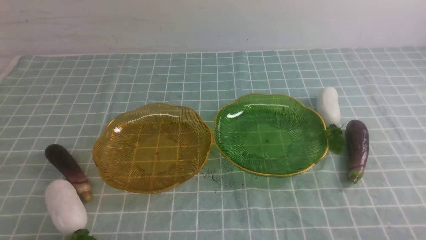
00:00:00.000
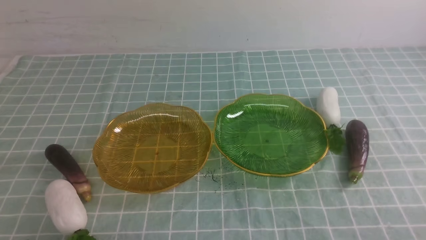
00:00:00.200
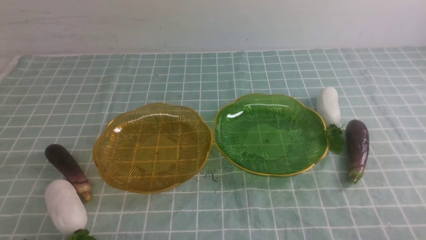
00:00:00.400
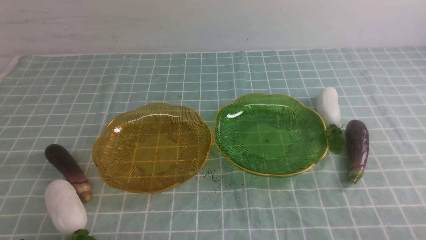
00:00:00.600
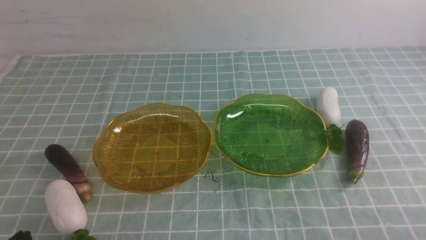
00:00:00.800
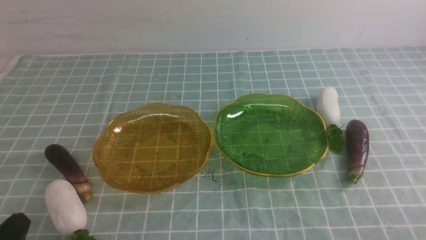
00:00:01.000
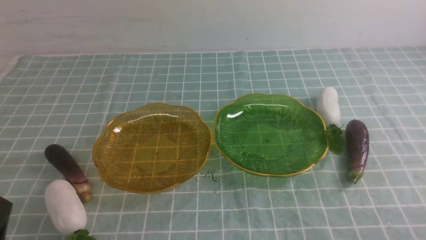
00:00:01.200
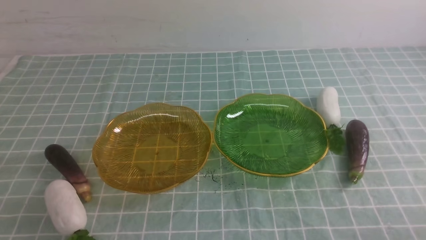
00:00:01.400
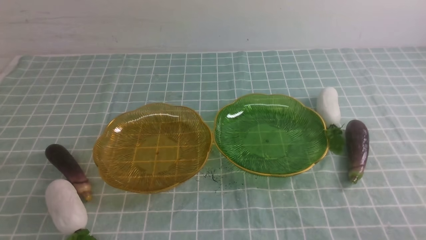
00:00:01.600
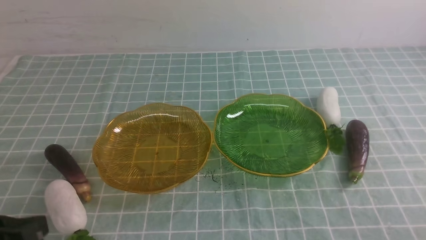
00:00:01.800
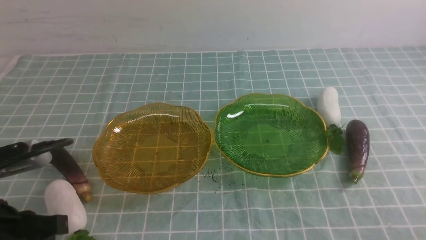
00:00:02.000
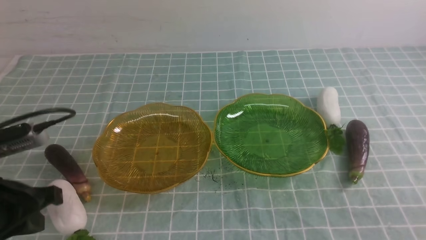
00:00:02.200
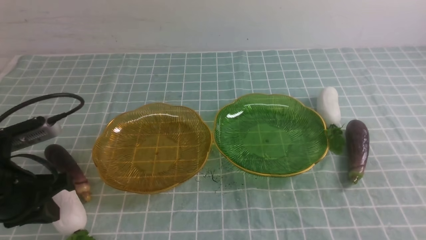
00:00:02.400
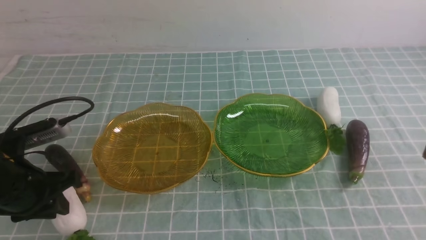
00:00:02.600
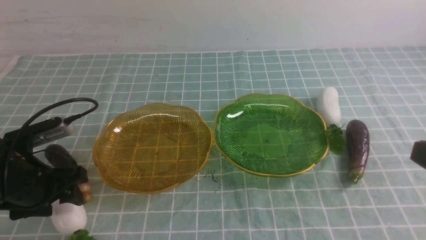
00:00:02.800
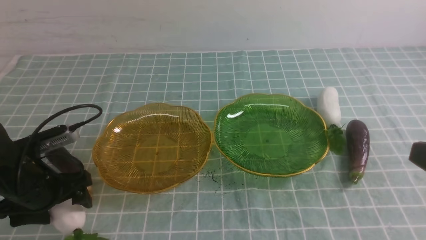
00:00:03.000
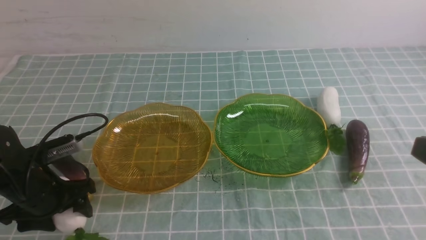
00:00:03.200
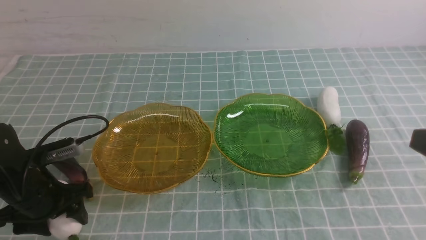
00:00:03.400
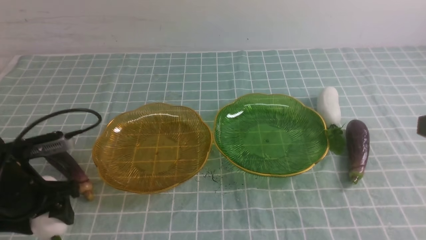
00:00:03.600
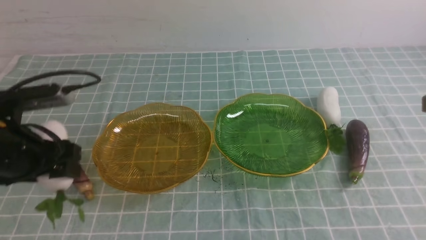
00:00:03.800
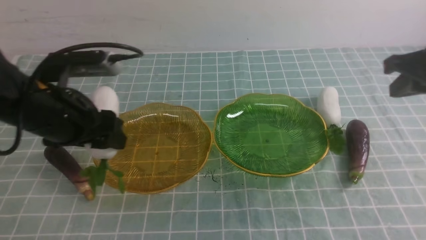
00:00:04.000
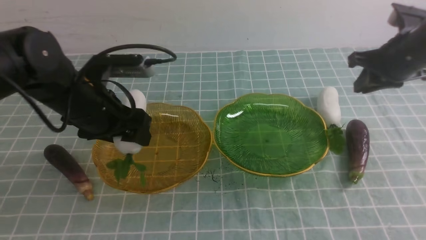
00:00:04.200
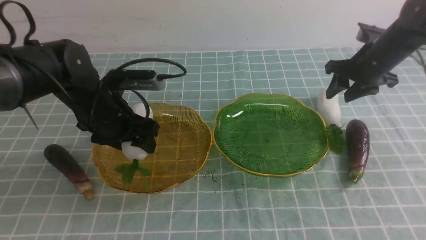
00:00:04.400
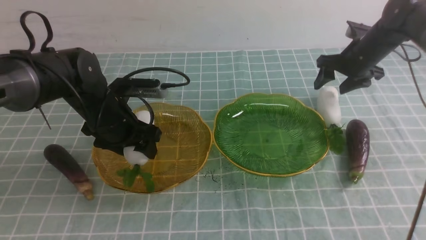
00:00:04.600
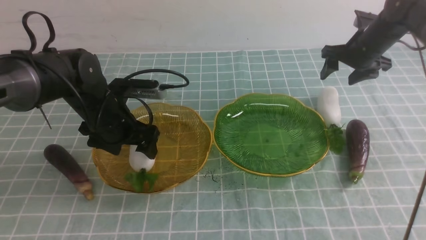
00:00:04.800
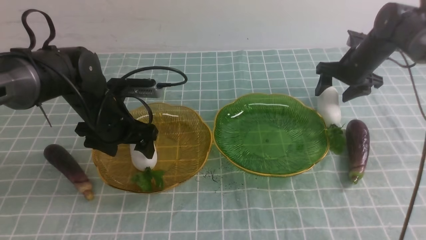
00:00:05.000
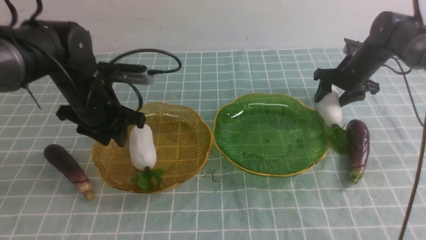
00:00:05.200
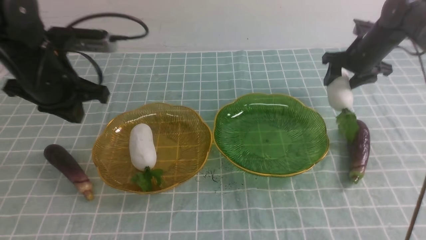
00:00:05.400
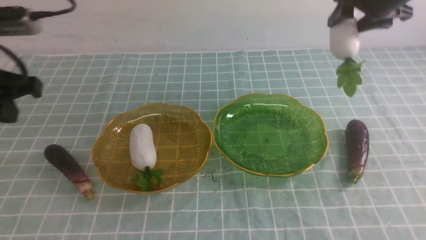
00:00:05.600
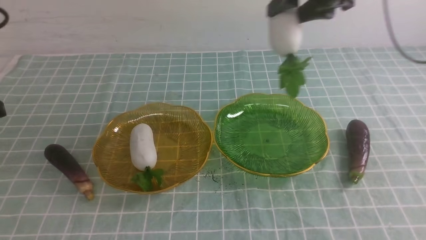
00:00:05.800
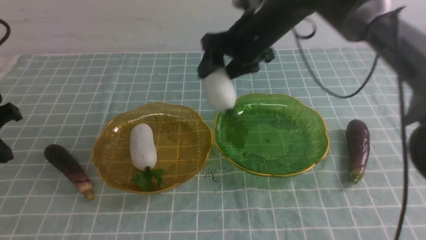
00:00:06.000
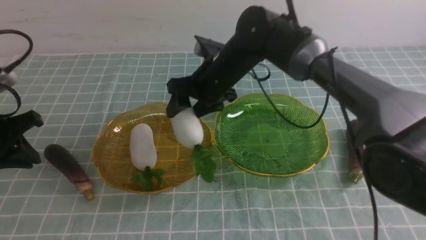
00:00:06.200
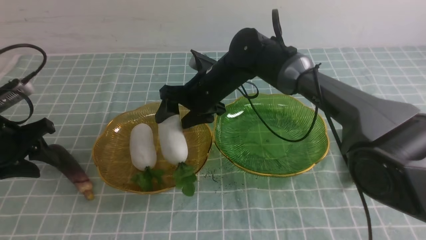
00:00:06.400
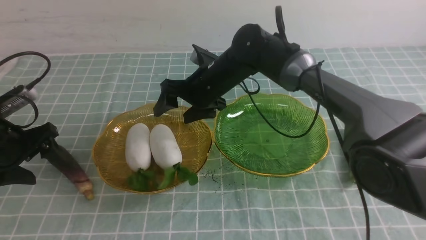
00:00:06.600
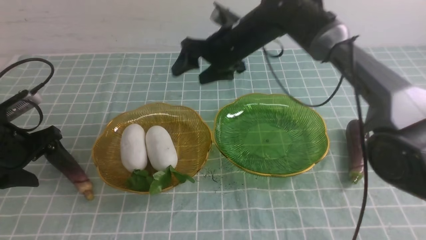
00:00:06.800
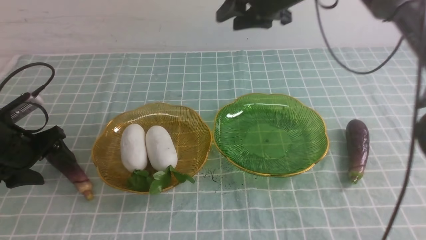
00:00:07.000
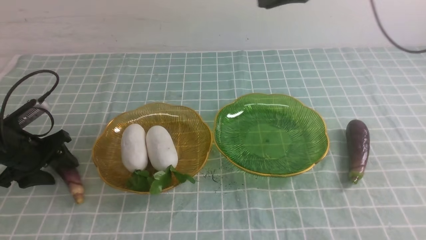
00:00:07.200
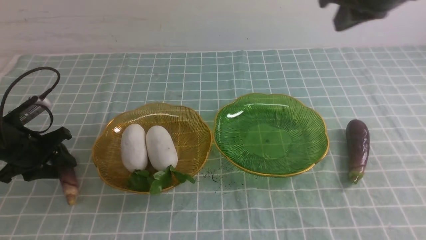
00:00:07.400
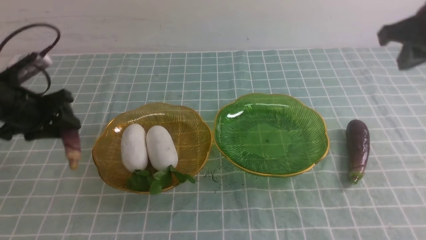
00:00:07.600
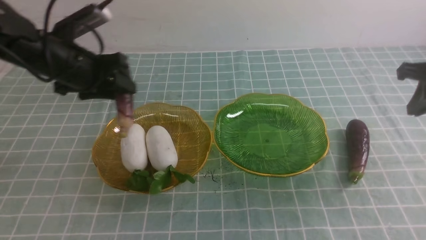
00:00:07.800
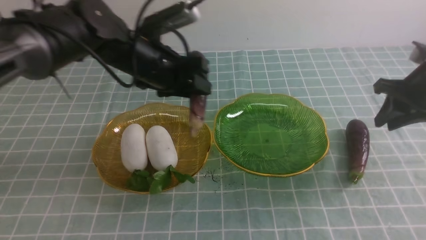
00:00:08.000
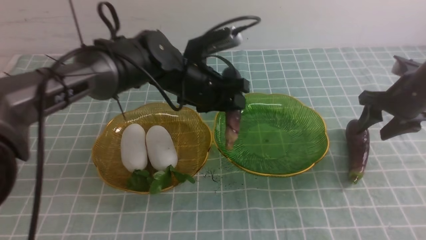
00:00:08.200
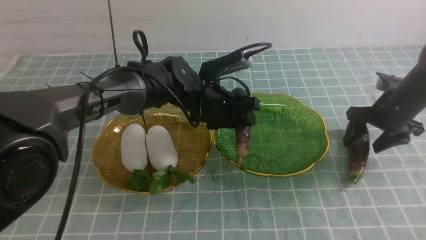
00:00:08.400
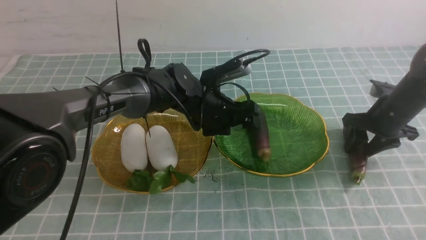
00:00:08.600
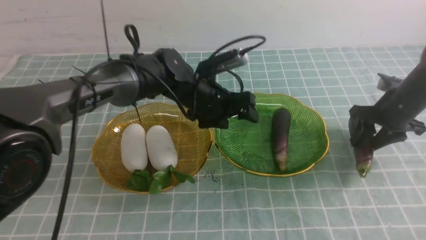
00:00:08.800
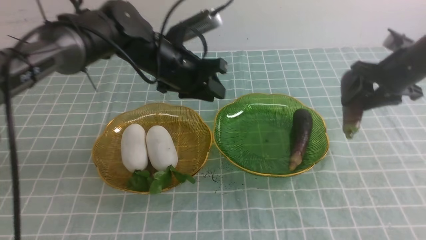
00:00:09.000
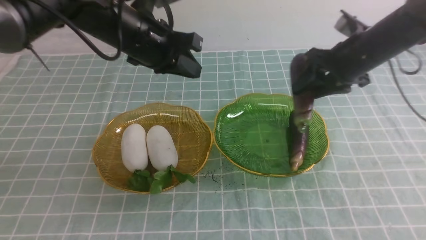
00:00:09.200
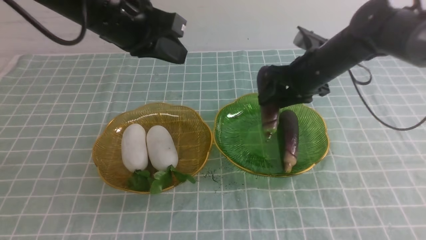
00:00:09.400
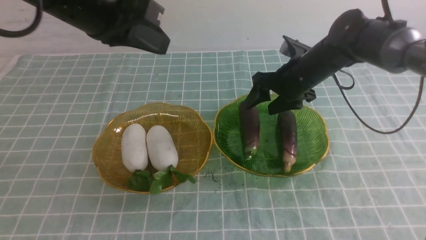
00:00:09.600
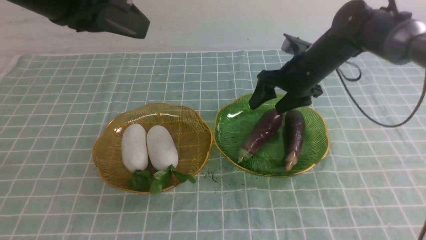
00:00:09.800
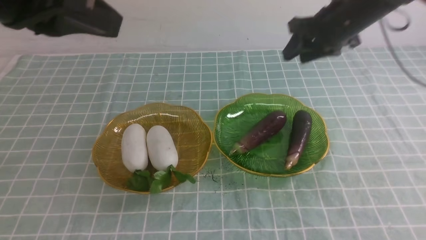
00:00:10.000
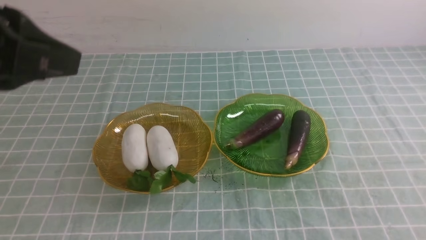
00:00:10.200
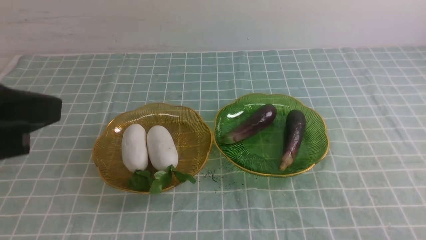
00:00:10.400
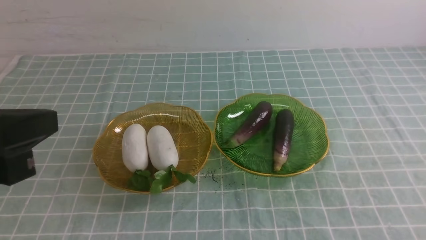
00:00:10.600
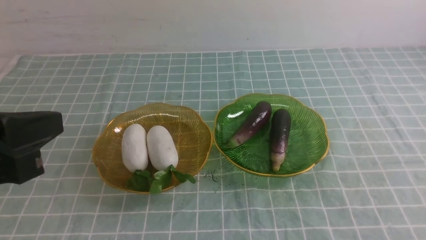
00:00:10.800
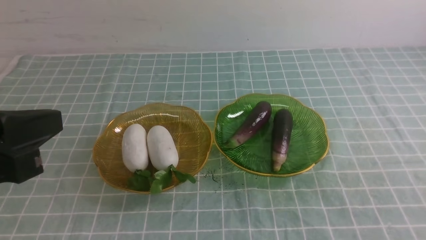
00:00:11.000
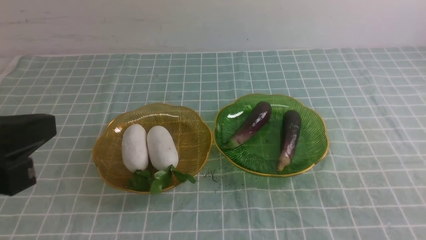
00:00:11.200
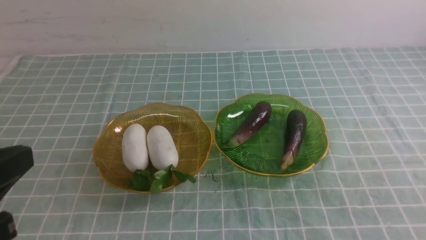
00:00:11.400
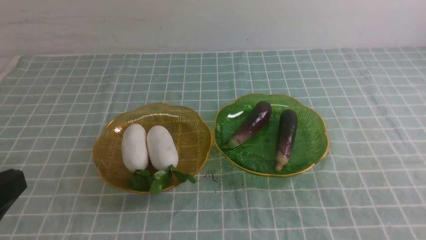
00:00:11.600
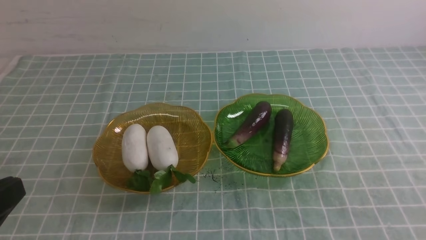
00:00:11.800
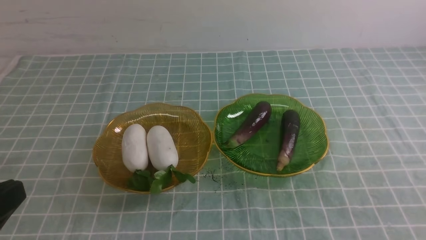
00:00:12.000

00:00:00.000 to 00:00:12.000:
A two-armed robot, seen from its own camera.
Step, 00:00:00.000 to 00:00:04.600: use the left arm to grab a radish and put it into the left plate.
Step, 00:00:04.800 to 00:00:06.400: use the right arm to grab a radish and put it into the left plate.
Step, 00:00:06.600 to 00:00:08.400: use the left arm to grab an eggplant and put it into the right plate.
Step, 00:00:08.600 to 00:00:09.600: use the right arm to grab an eggplant and put it into the right plate.
00:00:01.600 to 00:00:03.000: The left gripper travels forward and downward by about 20 cm, and opens.
00:00:03.000 to 00:00:04.400: The right gripper is displaced forward by approximately 35 cm, and opens. Meanwhile the left gripper travels forward, to the right and upward by about 15 cm.
00:00:04.400 to 00:00:06.000: The right gripper travels to the left by roughly 20 cm. The left gripper heads to the left and backward, covering approximately 20 cm, and closes.
00:00:06.000 to 00:00:07.600: The right gripper moves to the right, approximately 25 cm, and closes up, while the left gripper shifts some 10 cm forward and downward, and opens its fingers.
00:00:07.600 to 00:00:09.000: The left gripper is displaced to the right by roughly 20 cm, and opens and closes again. Meanwhile the right gripper moves downward and forward, approximately 10 cm, and opens its fingers.
00:00:09.000 to 00:00:10.400: The right gripper is displaced upward and backward by about 35 cm, and closes its fingers. Meanwhile the left gripper travels backward, upward and to the left by roughly 35 cm, and closes up.
00:00:10.400 to 00:00:12.000: The left gripper shifts some 15 cm downward and backward. The right gripper shifts about 25 cm downward and backward.

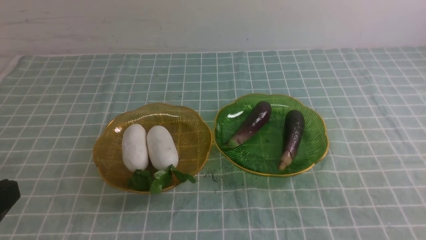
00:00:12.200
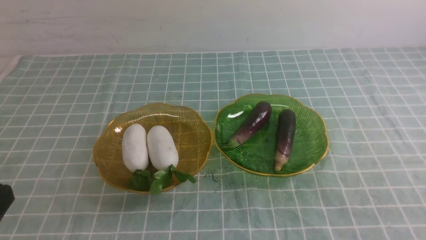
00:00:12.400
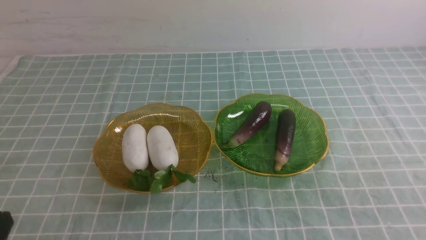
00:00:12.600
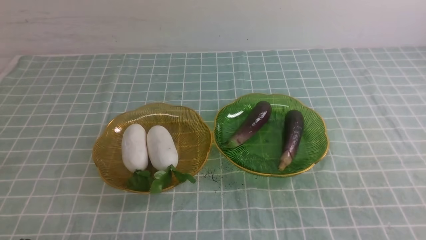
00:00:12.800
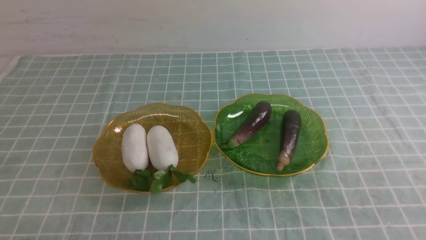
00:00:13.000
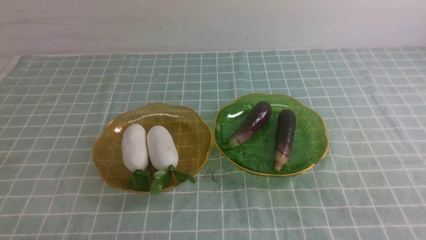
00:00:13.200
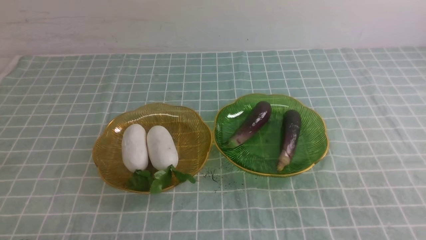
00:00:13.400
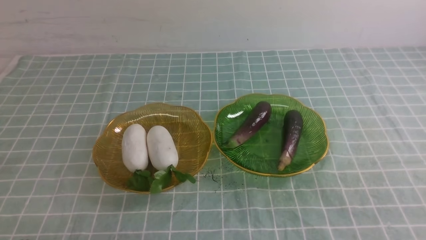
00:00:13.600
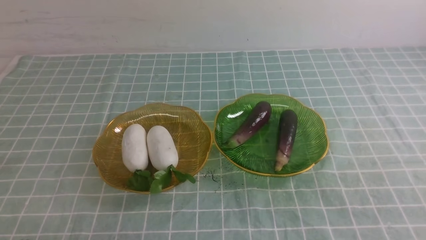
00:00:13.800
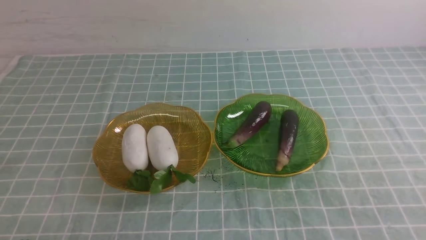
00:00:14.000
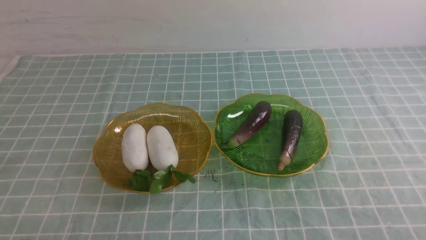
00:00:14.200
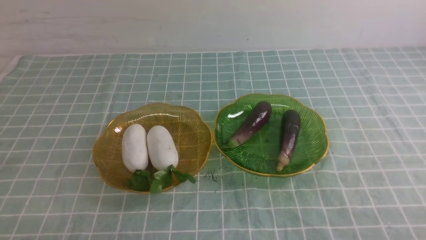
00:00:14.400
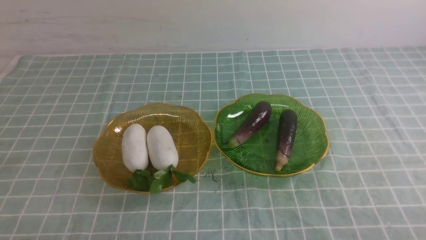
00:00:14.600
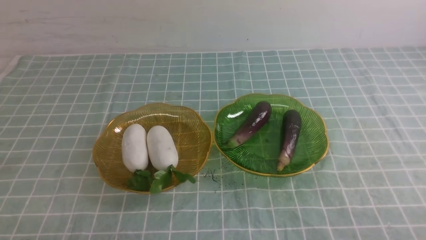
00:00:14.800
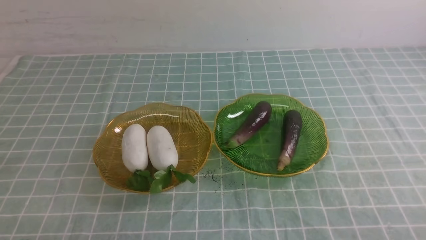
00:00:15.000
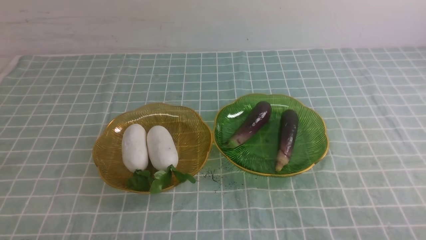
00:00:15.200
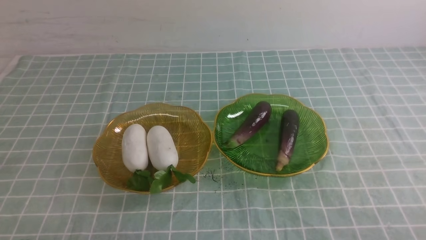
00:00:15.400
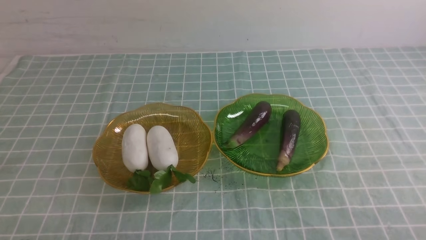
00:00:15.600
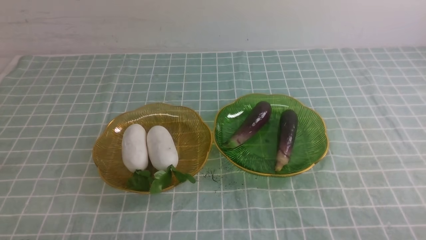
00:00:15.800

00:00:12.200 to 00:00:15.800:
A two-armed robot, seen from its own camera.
00:00:12.200 to 00:00:14.000: The left gripper shifts some 15 cm downward. Meanwhile the right gripper shifts some 10 cm downward.

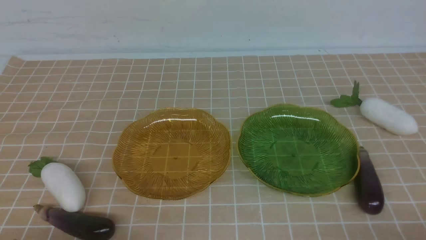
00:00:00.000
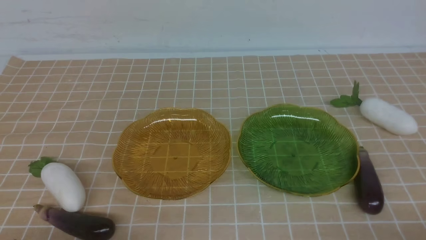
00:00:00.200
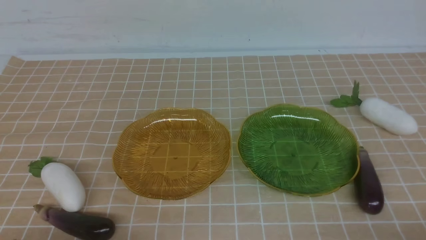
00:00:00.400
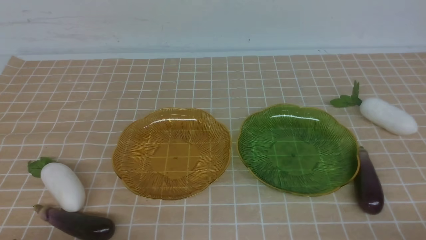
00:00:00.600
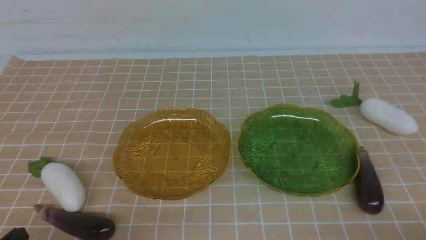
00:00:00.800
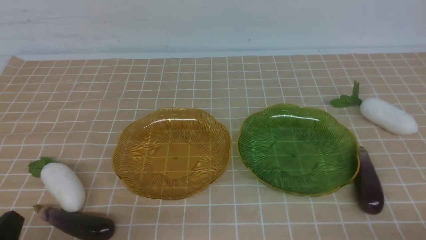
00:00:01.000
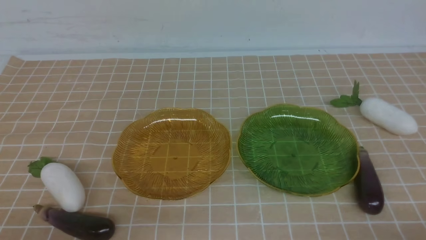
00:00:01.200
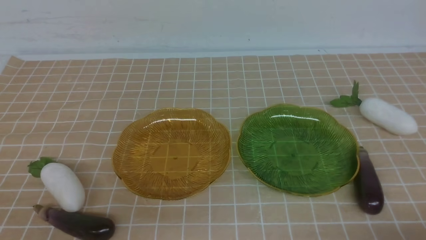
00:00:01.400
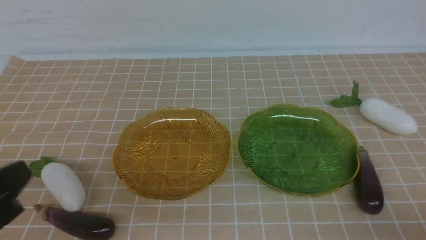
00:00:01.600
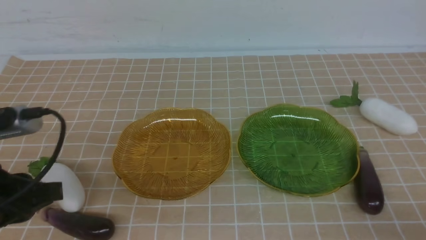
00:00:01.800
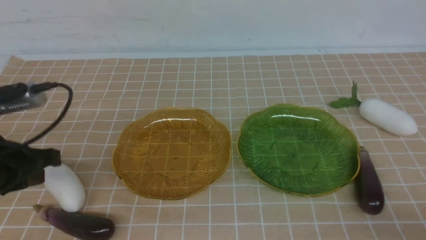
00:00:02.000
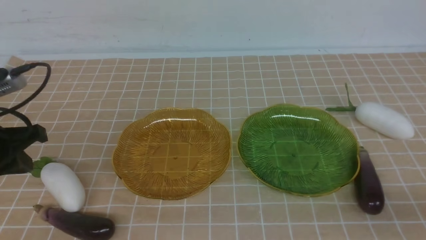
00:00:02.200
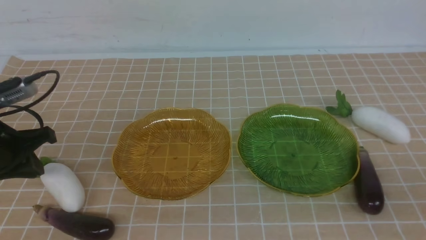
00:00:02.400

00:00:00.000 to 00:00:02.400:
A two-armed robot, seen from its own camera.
00:00:01.200 to 00:00:02.400: The left gripper moves forward, some 20 cm, and opens up. The right gripper travels upward by roughly 10 cm.
